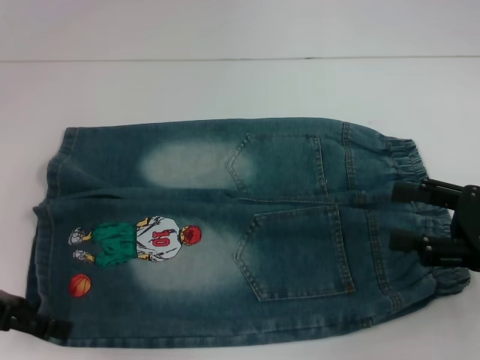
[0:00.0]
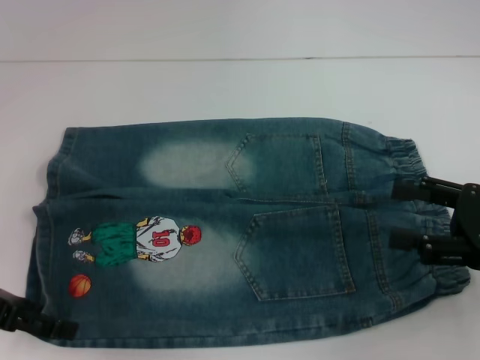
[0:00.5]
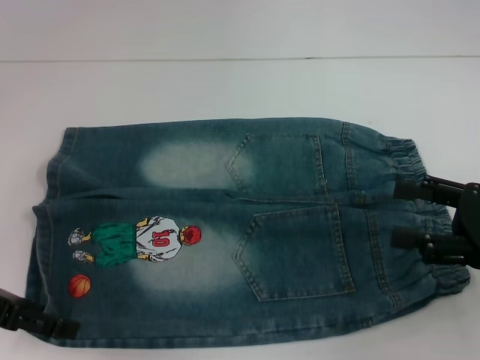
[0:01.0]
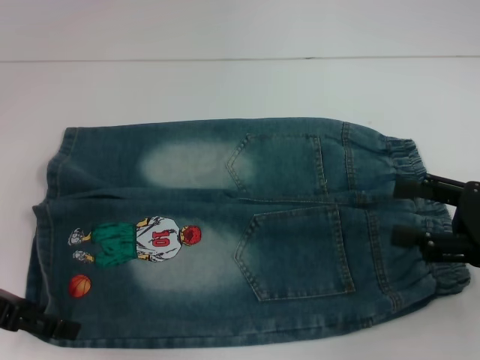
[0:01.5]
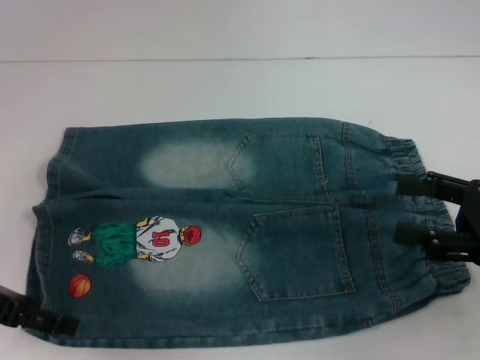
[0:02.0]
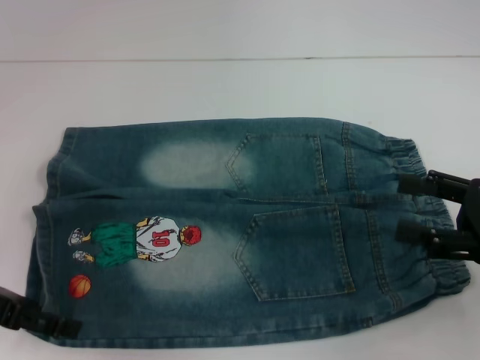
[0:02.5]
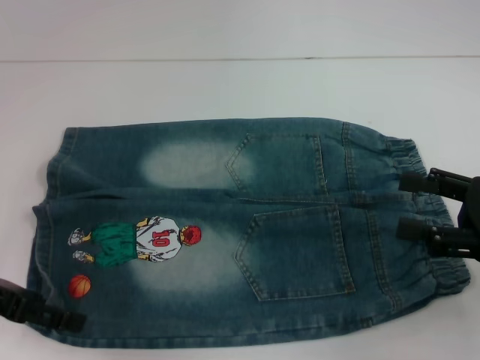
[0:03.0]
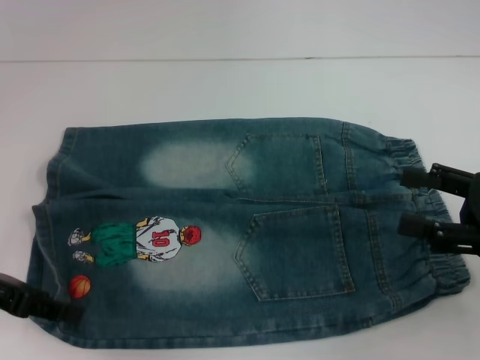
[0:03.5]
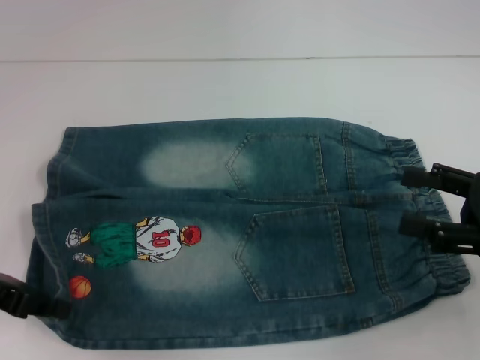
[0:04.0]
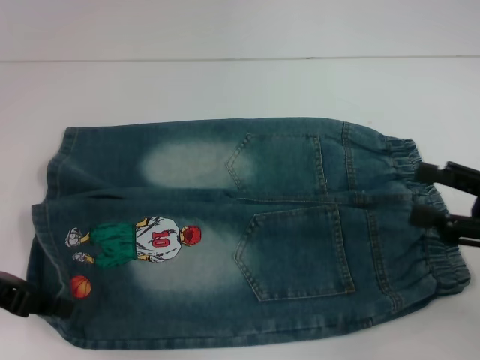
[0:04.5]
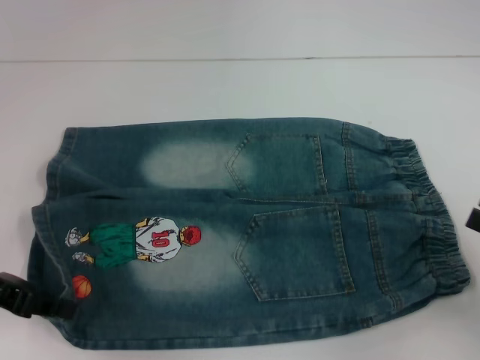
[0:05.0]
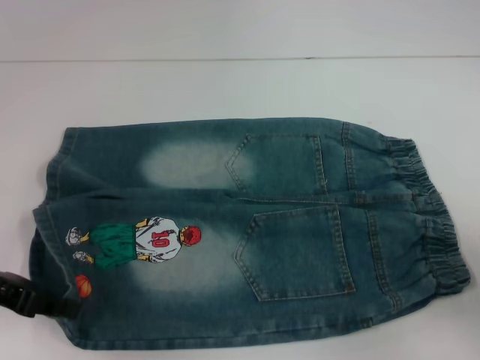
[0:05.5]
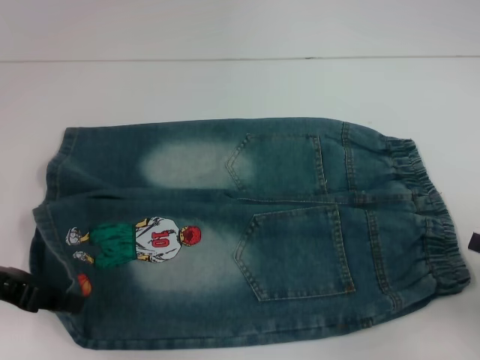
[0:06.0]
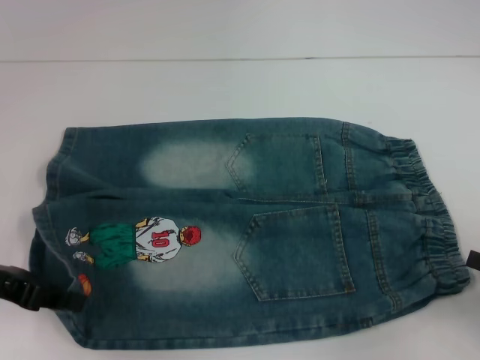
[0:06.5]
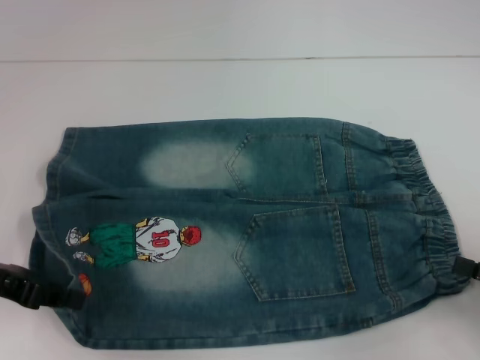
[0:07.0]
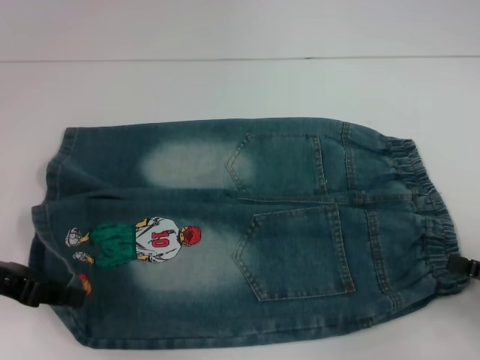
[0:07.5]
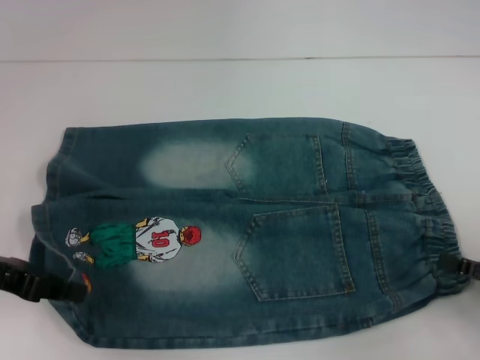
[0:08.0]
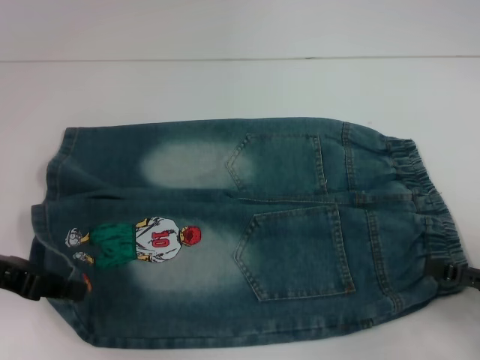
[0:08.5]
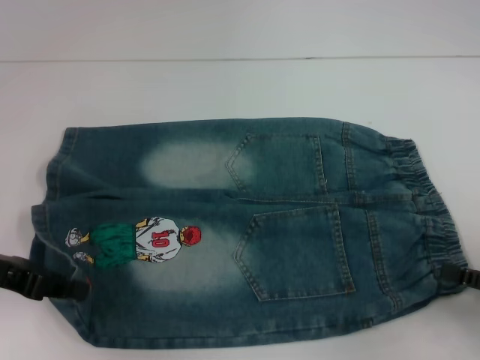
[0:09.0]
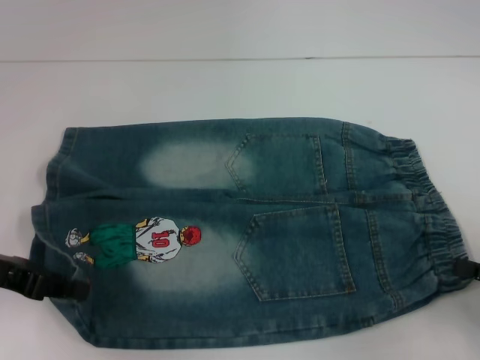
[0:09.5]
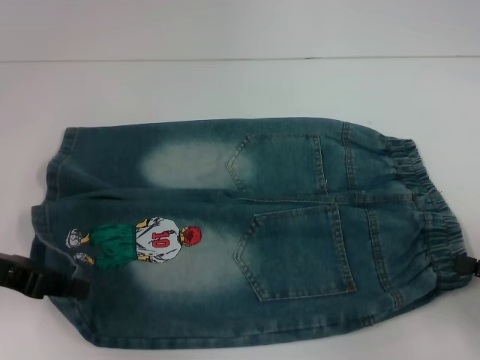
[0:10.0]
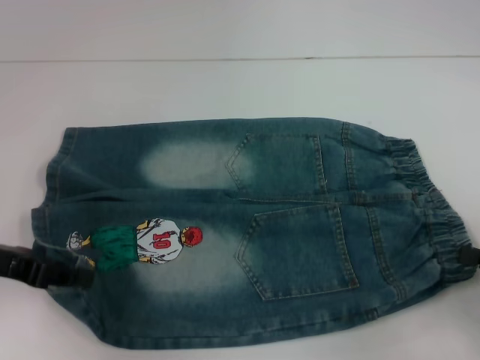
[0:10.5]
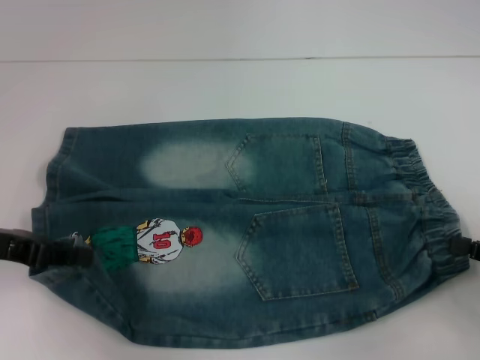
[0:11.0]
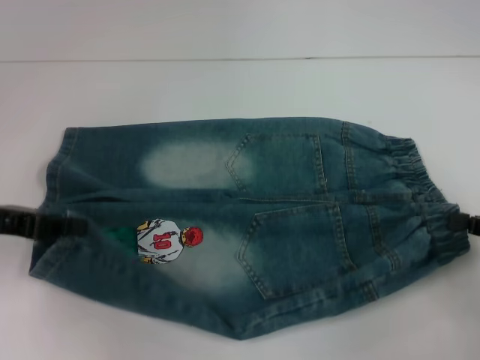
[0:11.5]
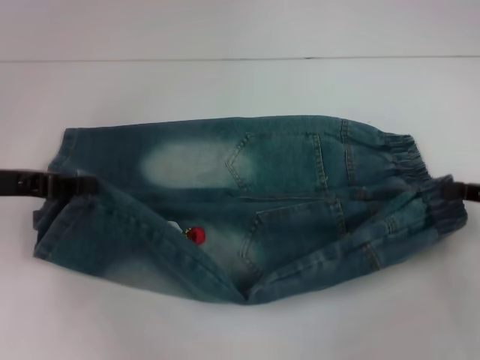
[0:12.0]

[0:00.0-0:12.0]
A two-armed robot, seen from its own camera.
Step, 0:00.0 to 0:03.0: Grab the lower left pant leg with your left hand.
Step, 0:03.5 to 0:09.0: Hold the lower right waistband with your right hand.
0:00.0 to 0:02.0: Both grippers stay about where they are.
0:02.0 to 0:04.0: The left gripper closes its fingers.
0:04.0 to 0:06.0: The right gripper goes about 10 cm to the right, backward and downward.
0:06.0 to 0:08.0: There are only small adjustments of the grippers.
0:08.0 to 0:10.0: The right gripper closes its fingers.
0:10.0 to 0:12.0: The right gripper travels forward and upward by some 10 cm.

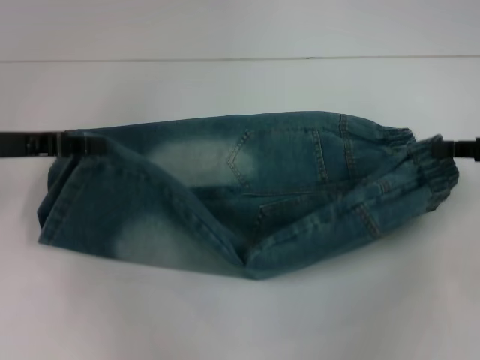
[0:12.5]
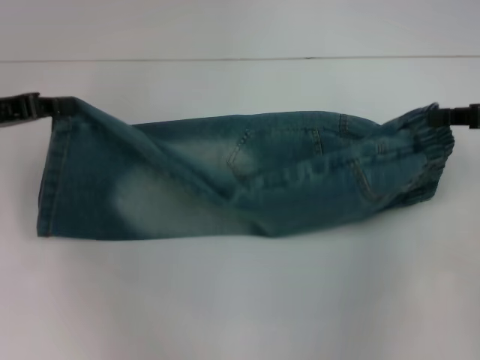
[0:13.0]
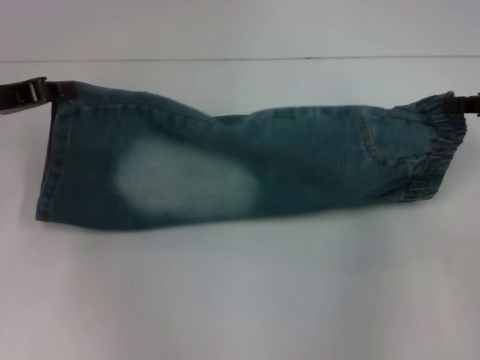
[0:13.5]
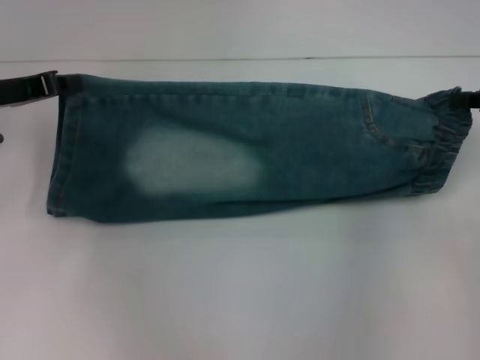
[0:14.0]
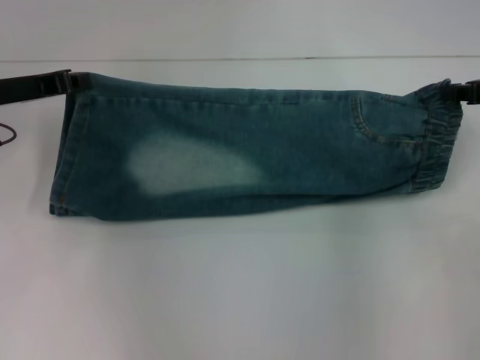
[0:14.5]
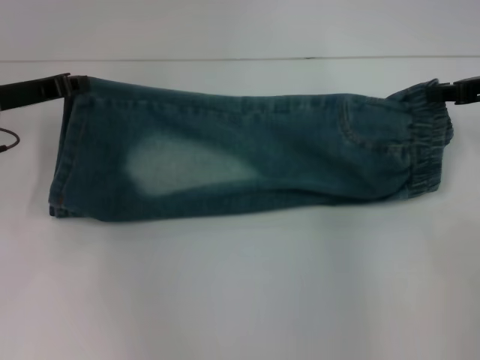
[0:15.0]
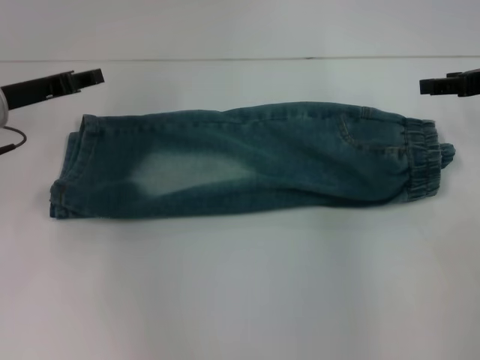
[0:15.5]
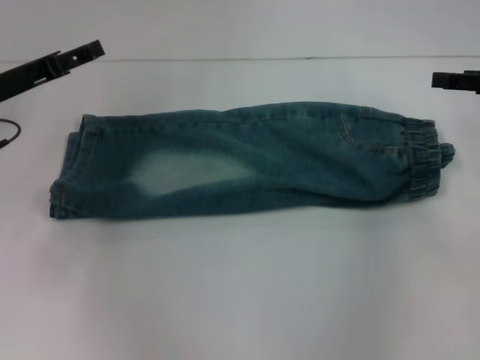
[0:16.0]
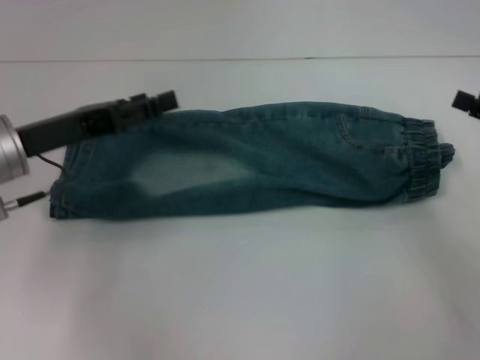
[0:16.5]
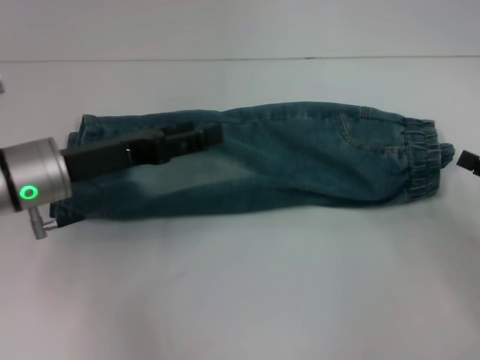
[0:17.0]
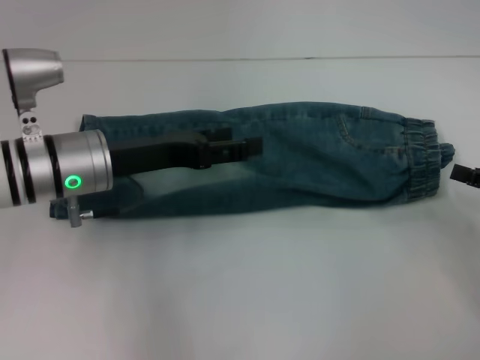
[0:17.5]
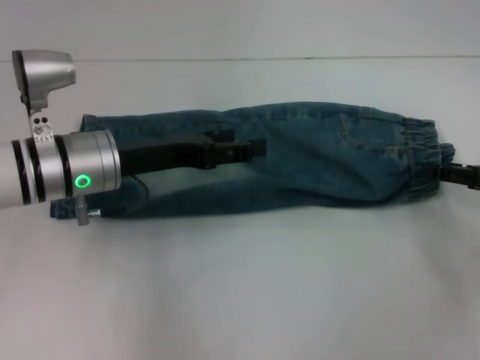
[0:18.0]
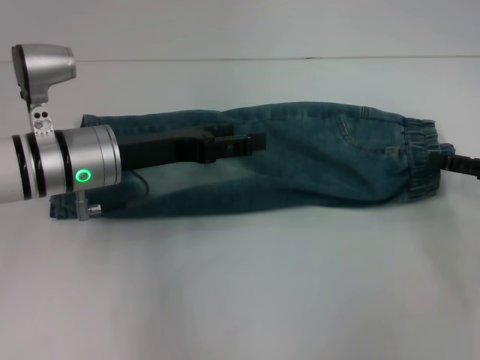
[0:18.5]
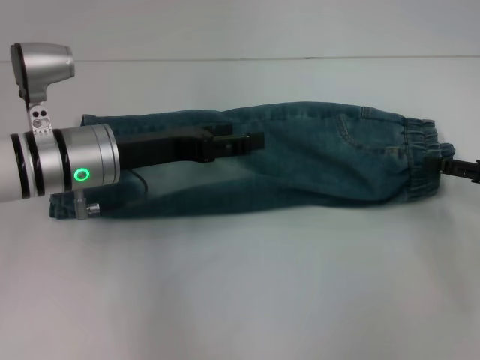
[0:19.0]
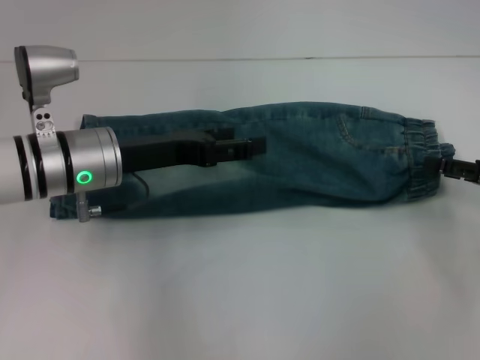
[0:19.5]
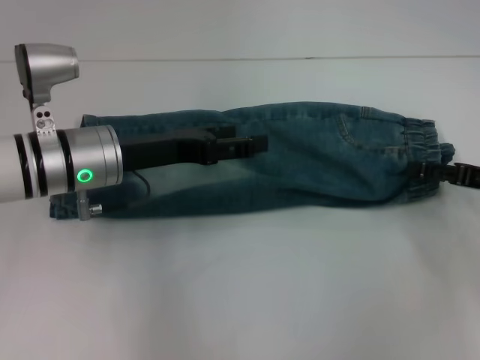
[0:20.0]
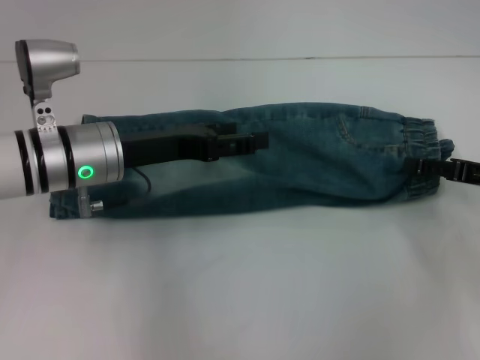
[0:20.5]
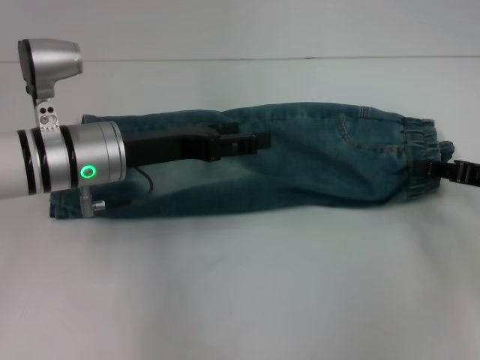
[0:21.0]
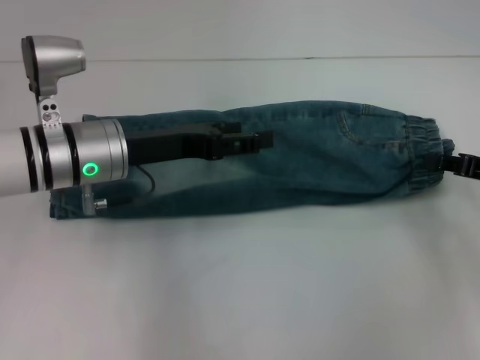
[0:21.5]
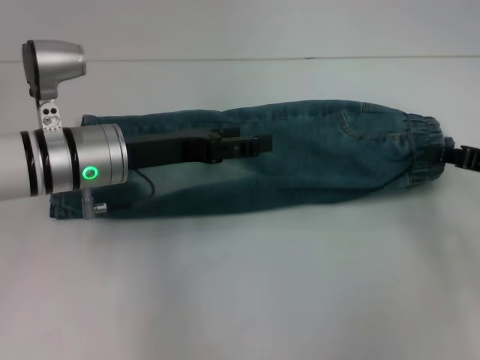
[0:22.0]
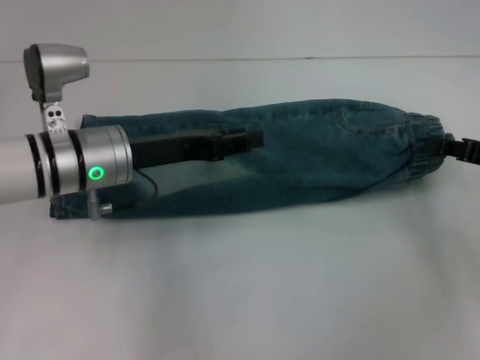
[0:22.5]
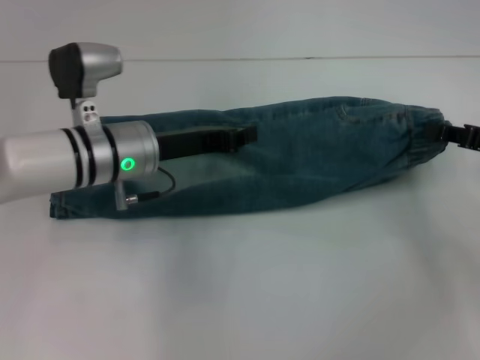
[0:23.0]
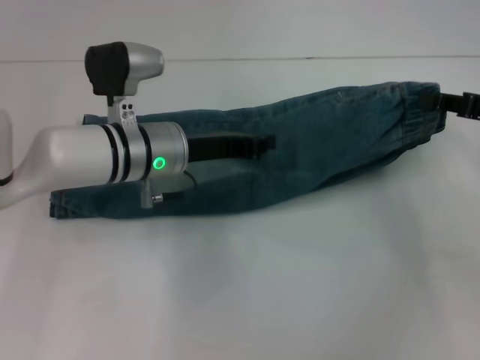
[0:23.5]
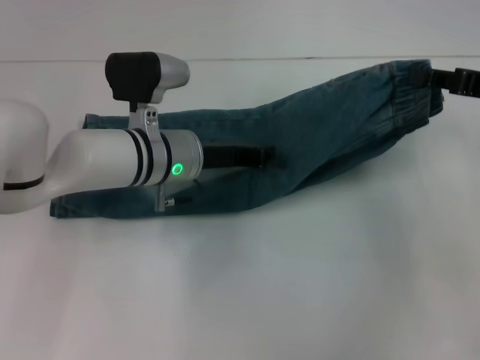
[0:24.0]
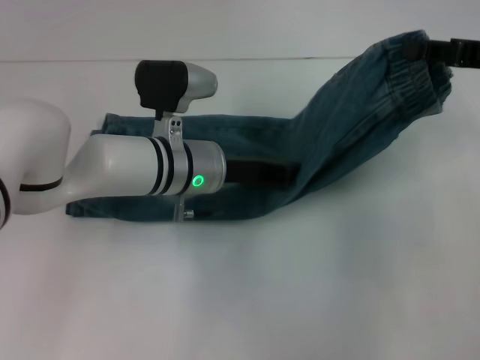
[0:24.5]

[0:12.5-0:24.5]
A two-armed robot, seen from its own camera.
Step, 0:12.5 to 0:15.0: Fold upward with your right hand.
Step, 0:15.5 to 0:21.0: Grab the waistband with your right hand.
0:12.5 to 0:14.5: The right gripper heads forward, covering roughly 5 cm. Meanwhile the left gripper changes place by approximately 5 cm.
0:14.5 to 0:16.5: Both grippers travel together backward, roughly 10 cm. The right gripper opens. Meanwhile the left gripper opens up.
0:16.5 to 0:18.5: The left gripper goes roughly 5 cm to the right.
0:18.5 to 0:20.5: The grippers stay close to where they were, moving slightly.
0:20.5 to 0:22.5: The right gripper closes up.
0:22.5 to 0:24.5: The left gripper heads to the right, covering approximately 10 cm, and closes, while the right gripper travels upward by some 10 cm.

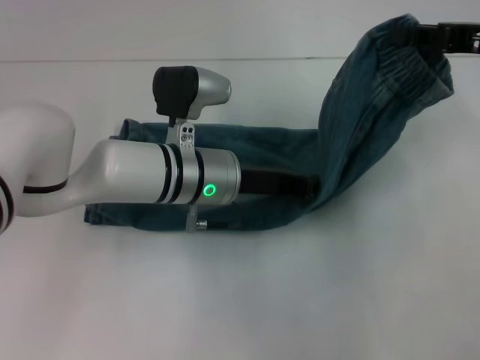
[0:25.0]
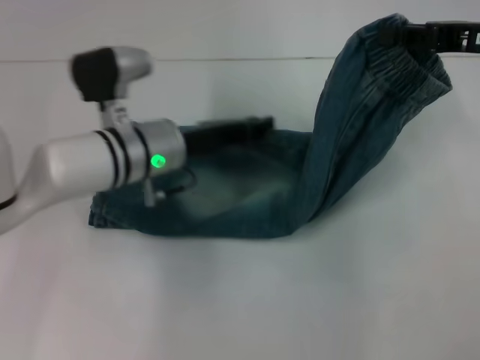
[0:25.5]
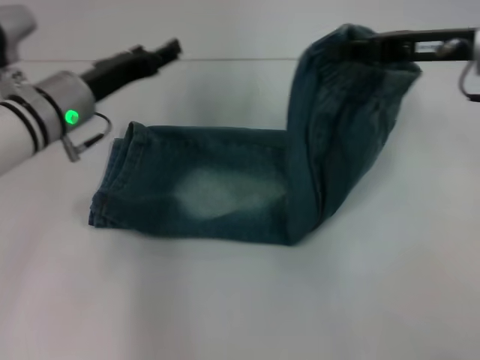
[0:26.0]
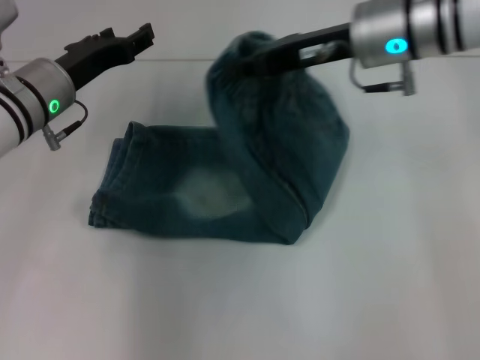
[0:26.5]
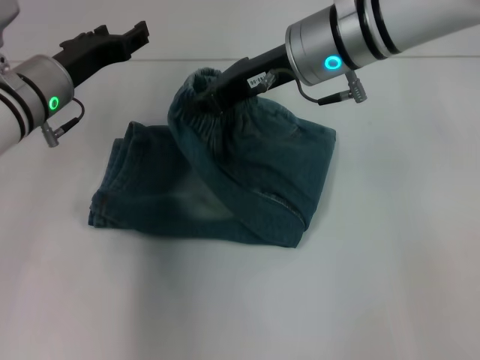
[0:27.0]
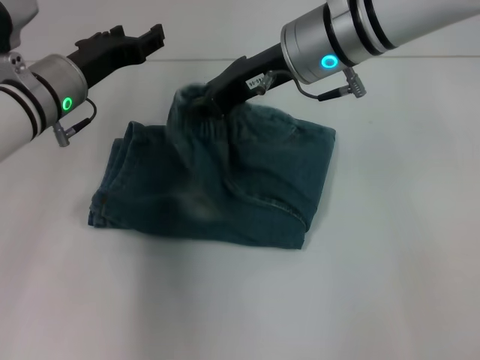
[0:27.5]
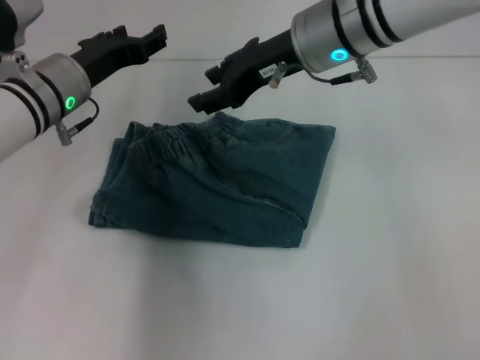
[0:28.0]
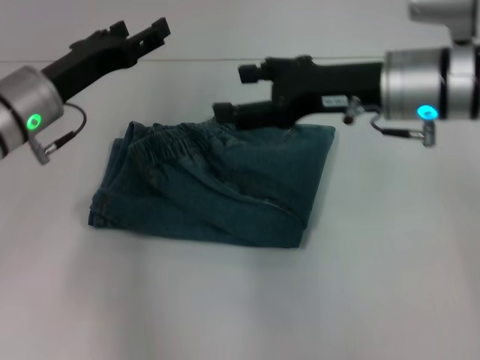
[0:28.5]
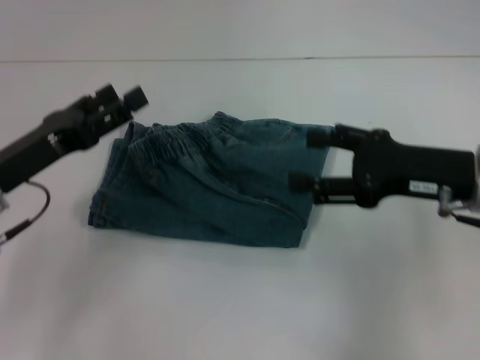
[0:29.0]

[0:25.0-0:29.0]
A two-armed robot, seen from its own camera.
Step, 0:25.5 to 0:28.0: Fold to the left with your right hand.
0:25.0 to 0:27.0: Both grippers travel together to the left, about 20 cm. The left gripper opens up.
0:27.0 to 0:29.0: The left gripper shifts approximately 15 cm backward and to the left. Meanwhile the right gripper is displaced to the right, backward and downward by roughly 20 cm, and opens its fingers.
